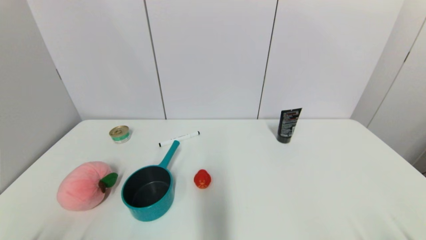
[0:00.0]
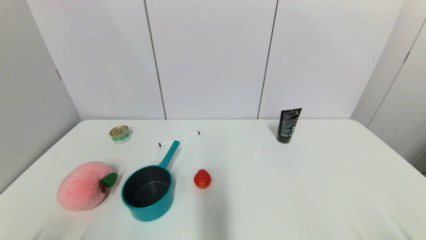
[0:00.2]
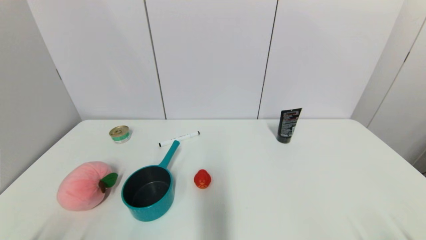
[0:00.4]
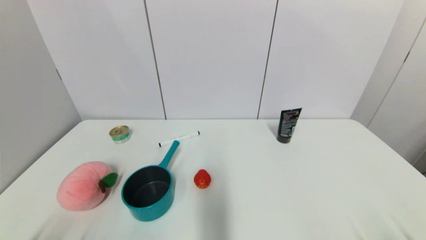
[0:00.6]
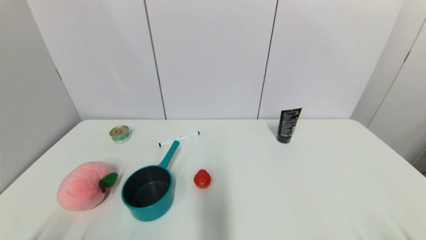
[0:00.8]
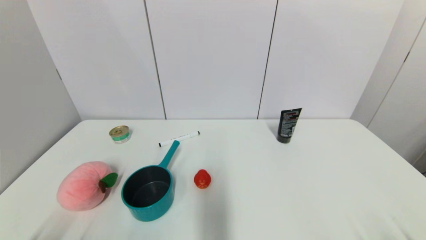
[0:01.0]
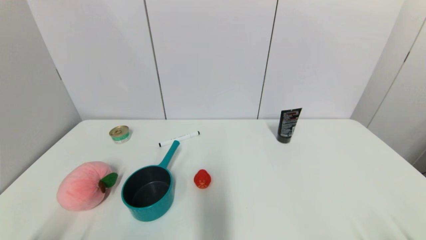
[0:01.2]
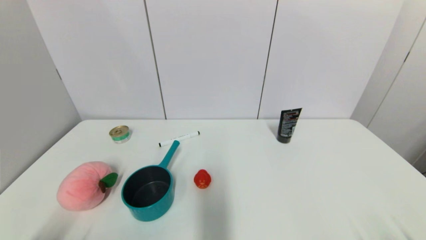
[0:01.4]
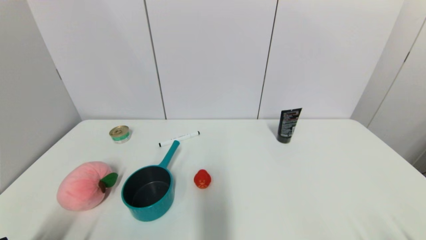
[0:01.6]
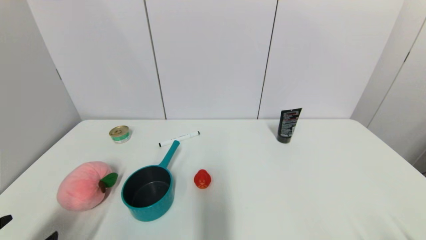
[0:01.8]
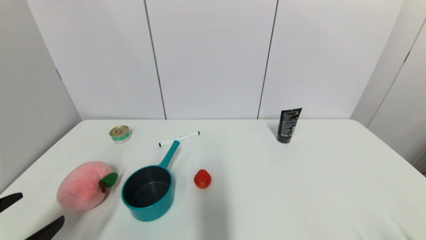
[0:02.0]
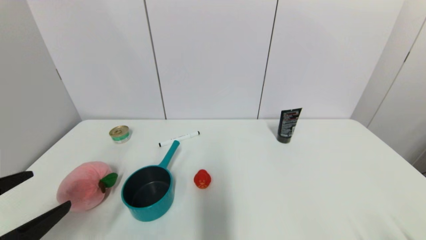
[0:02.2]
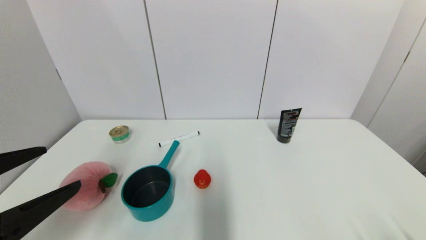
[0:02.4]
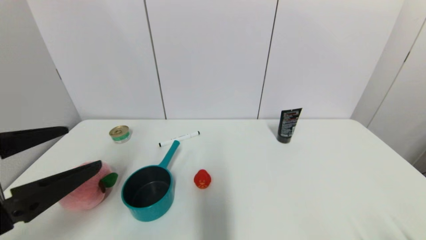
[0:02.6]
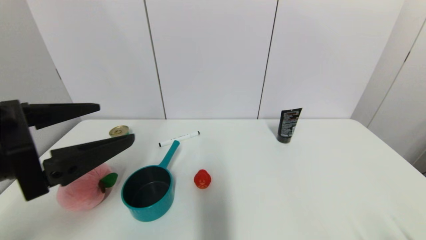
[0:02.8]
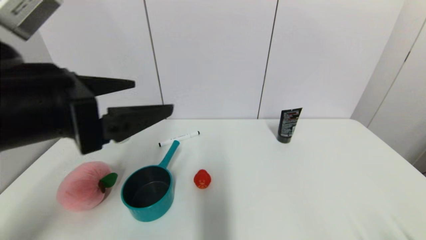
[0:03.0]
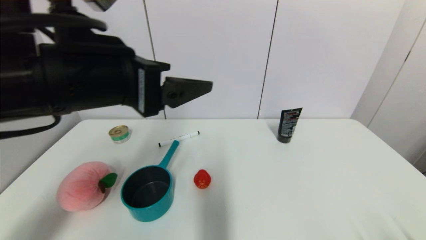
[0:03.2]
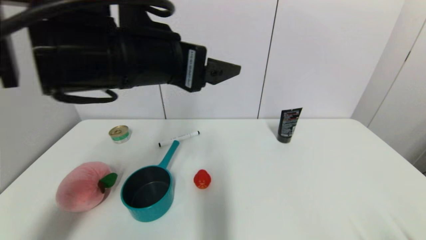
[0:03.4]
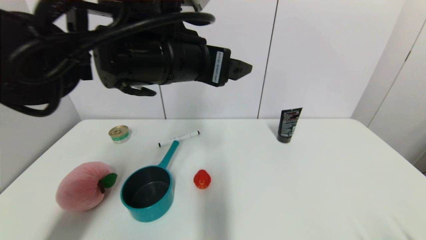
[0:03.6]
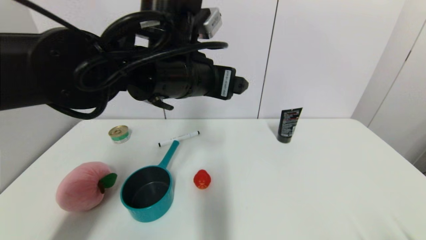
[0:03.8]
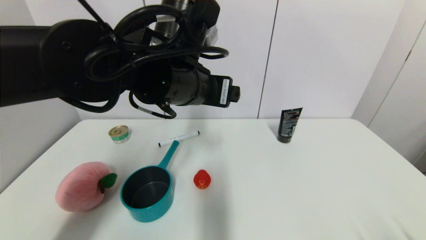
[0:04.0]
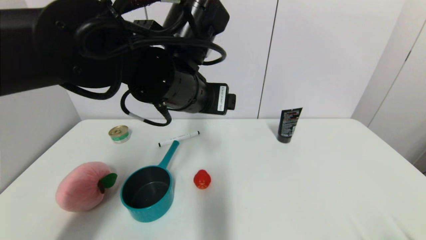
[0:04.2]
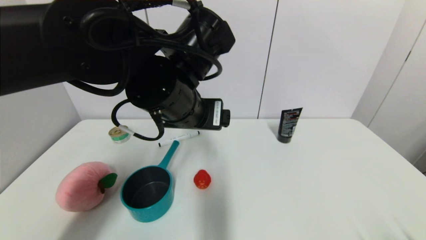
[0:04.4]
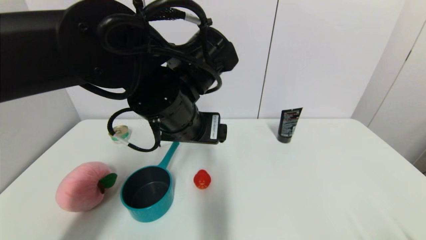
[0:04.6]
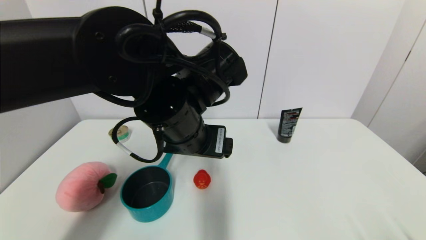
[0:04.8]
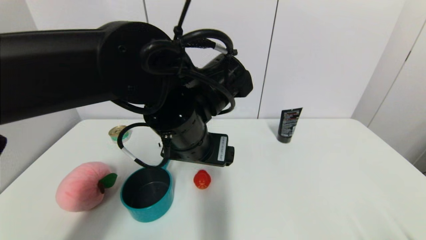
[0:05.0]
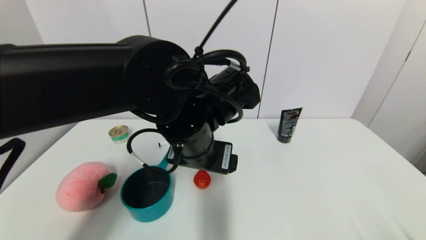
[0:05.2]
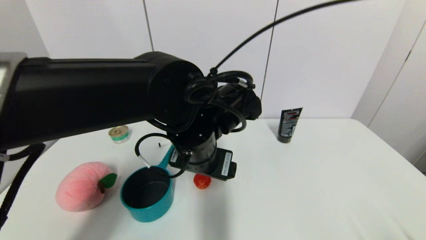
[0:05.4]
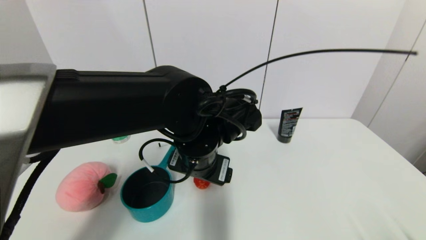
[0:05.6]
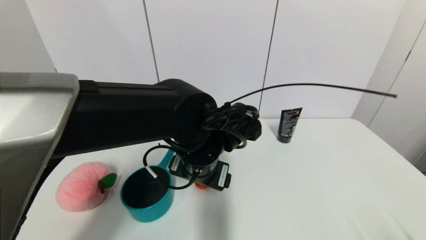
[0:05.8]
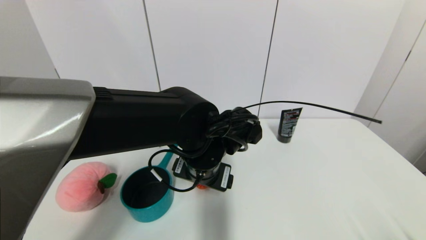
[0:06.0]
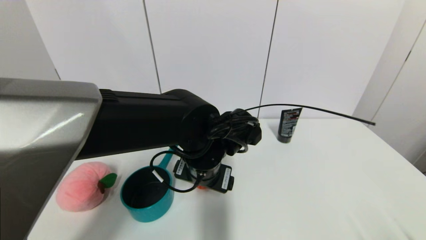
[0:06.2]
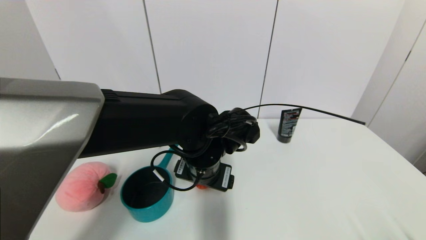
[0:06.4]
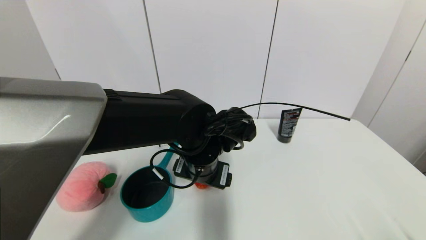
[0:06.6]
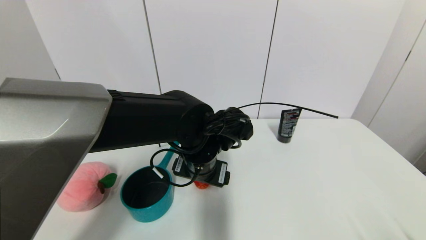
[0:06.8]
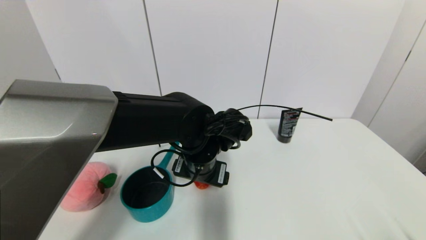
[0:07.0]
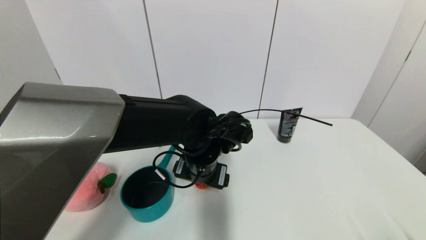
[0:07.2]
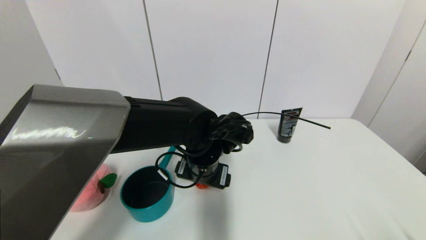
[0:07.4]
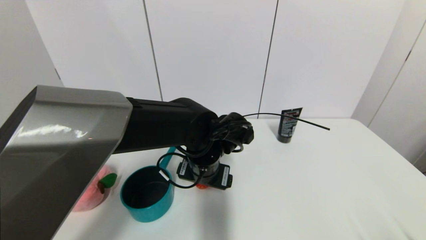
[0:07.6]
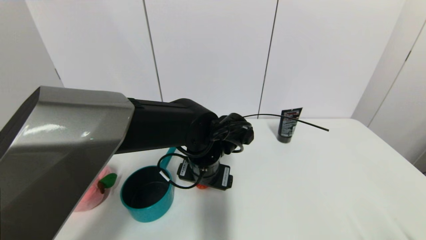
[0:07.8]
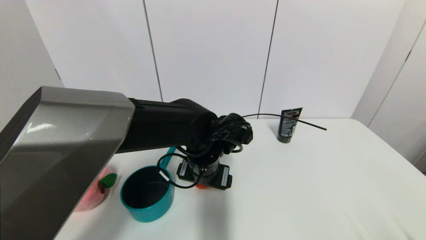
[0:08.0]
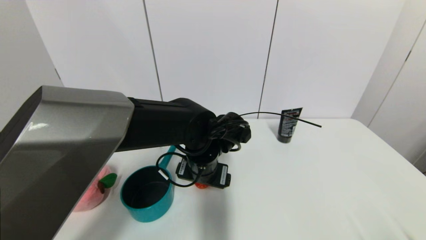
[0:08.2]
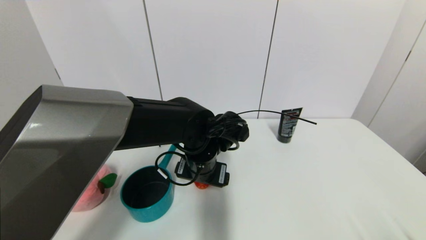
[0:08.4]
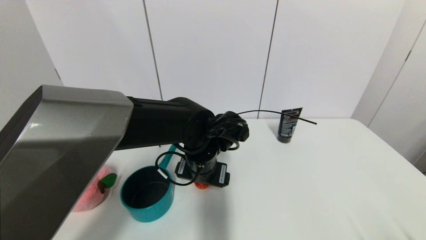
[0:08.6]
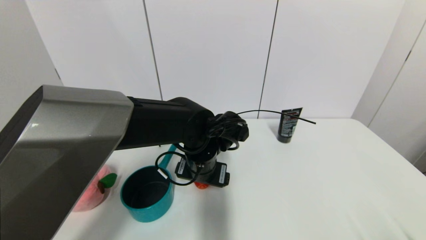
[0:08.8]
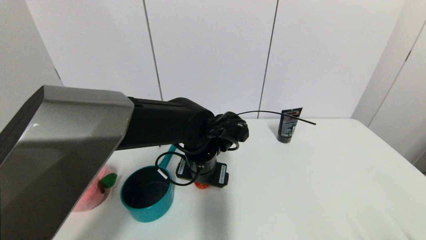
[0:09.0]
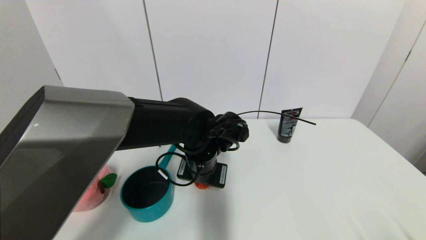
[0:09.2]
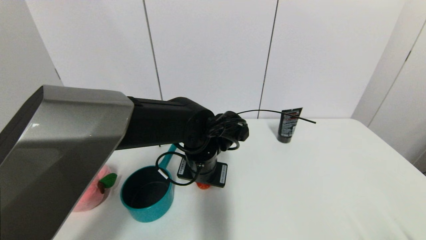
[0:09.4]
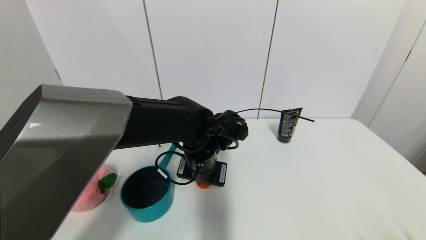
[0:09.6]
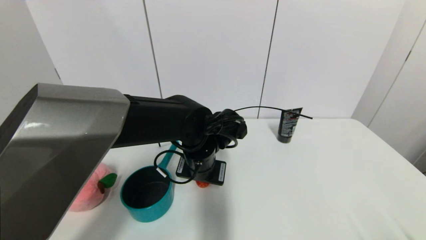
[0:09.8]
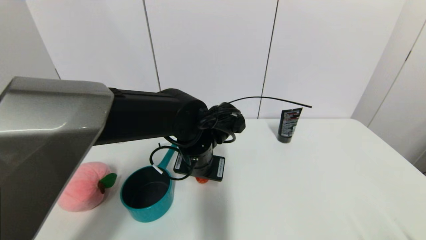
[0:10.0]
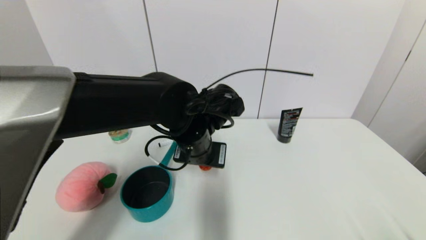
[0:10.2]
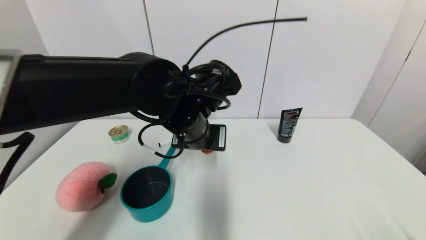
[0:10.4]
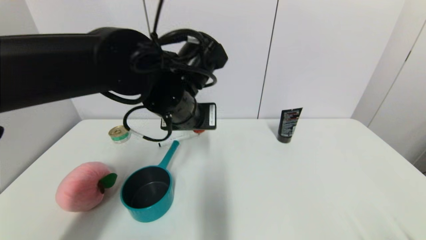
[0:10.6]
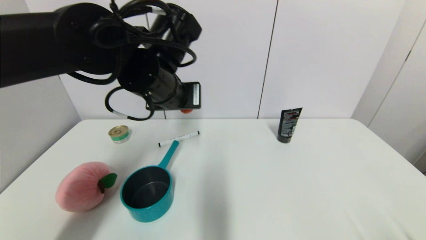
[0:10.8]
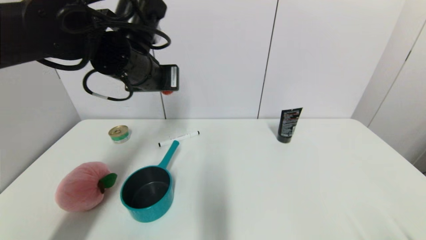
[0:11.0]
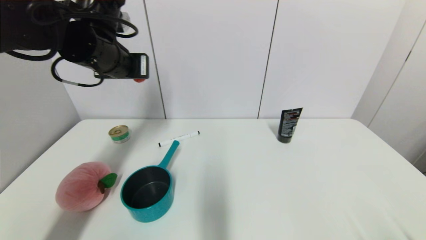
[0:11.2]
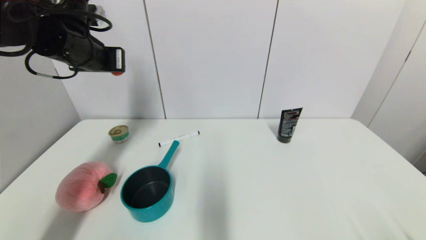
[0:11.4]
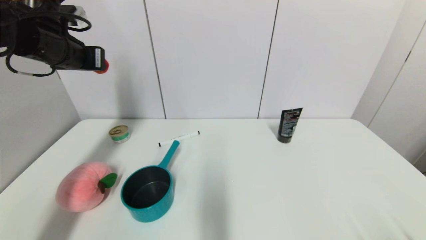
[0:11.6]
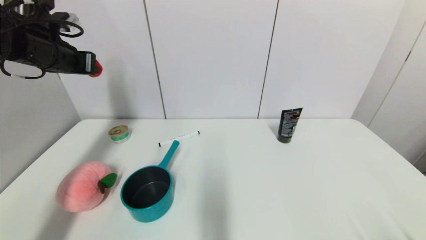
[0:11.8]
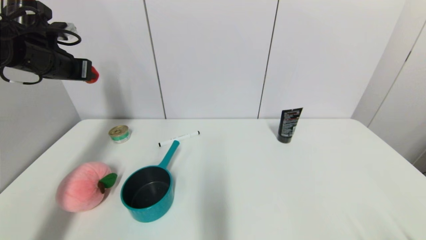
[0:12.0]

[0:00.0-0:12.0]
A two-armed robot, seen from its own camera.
Step, 0:01.8 to 0:09.8: Grasp the red duck with left gripper.
0:01.6 to 0:03.0: The left gripper heads upward, forward and to the right, covering approximately 30 cm.
0:03.0 to 0:04.4: The left gripper moves to the right and forward, approximately 15 cm.
0:04.4 to 0:06.0: The left gripper goes roughly 10 cm downward.
0:06.0 to 0:07.6: The grippers move only a little.
0:07.6 to 0:09.0: Both grippers stay about where they are.
0:09.0 to 0:10.4: The left gripper heads upward, covering about 10 cm, and closes its fingers.
0:10.4 to 0:12.0: The left gripper moves to the left, roughly 30 cm.

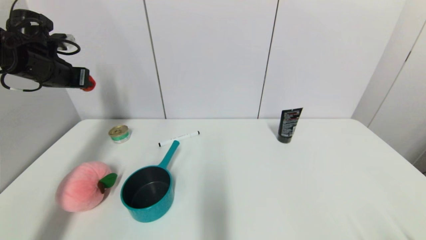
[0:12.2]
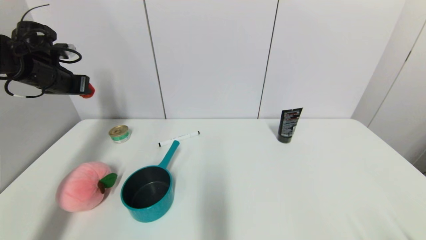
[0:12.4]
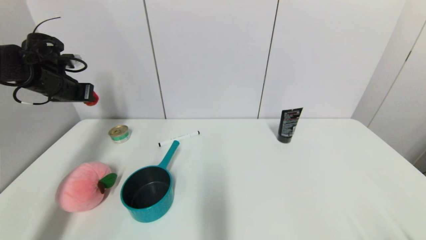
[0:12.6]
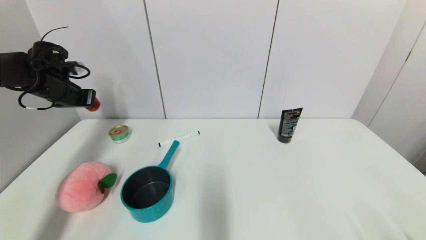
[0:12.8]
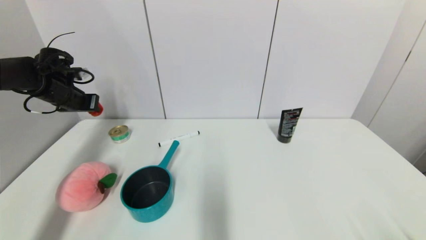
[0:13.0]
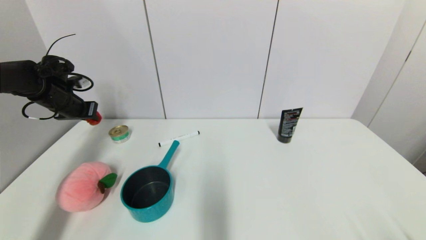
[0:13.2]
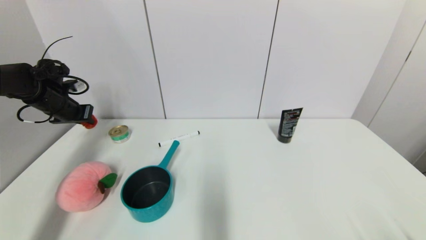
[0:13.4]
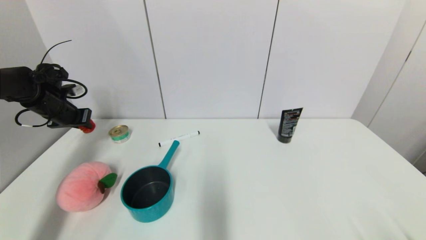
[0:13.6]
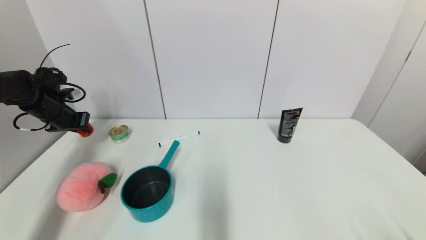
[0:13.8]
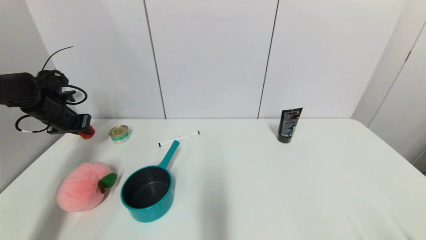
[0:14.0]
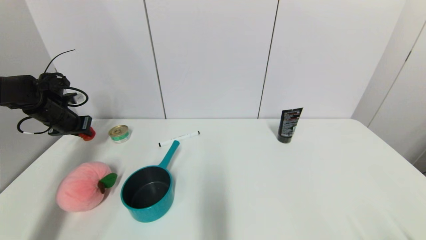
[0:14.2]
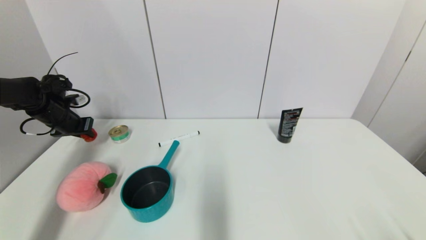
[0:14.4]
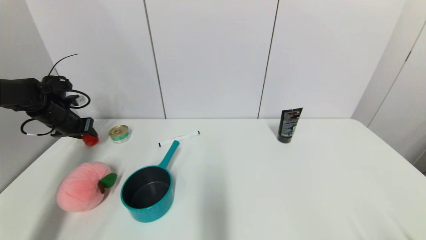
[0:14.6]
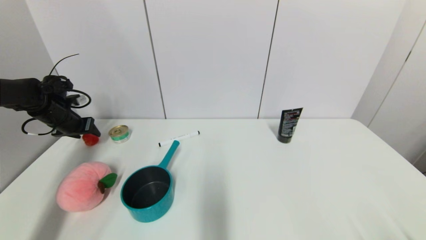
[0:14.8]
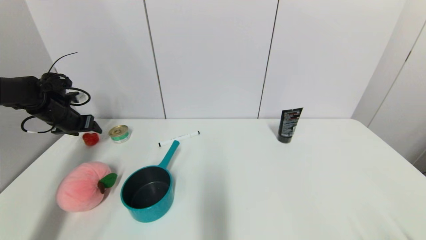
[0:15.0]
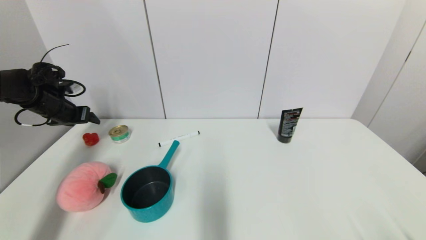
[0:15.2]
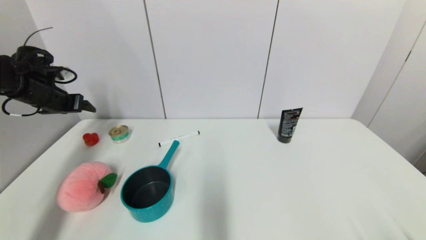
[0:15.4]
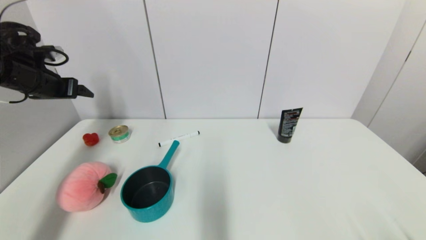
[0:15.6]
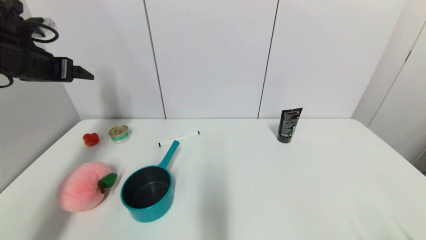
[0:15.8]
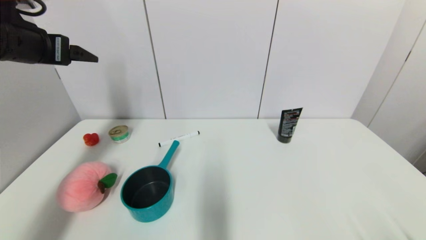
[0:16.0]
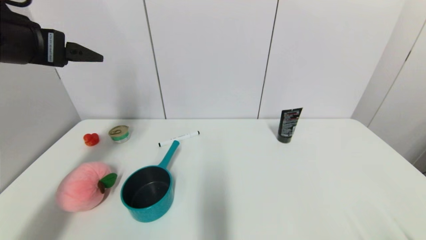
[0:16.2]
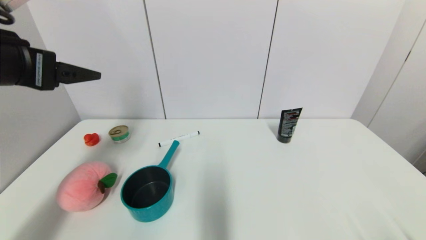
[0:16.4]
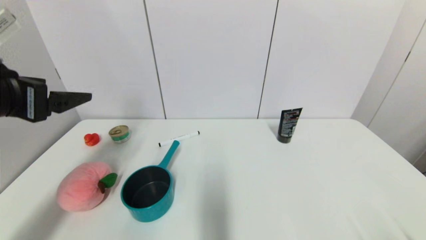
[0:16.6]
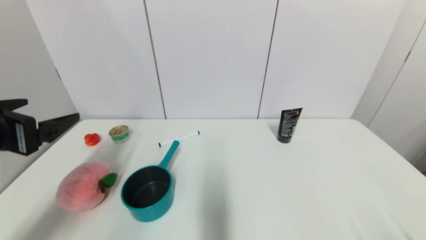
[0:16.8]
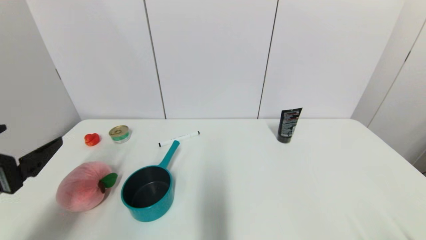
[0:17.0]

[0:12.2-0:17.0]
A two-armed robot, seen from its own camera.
Step, 0:12.2 to 0:14.8: Place the red duck on the table with left gripper.
0:12.2 to 0:13.8: The left gripper travels downward by approximately 10 cm.
0:13.8 to 0:15.4: The left gripper is displaced upward by roughly 5 cm, and opens its fingers.
0:15.4 to 0:17.0: The left gripper heads backward, covering some 30 cm.
